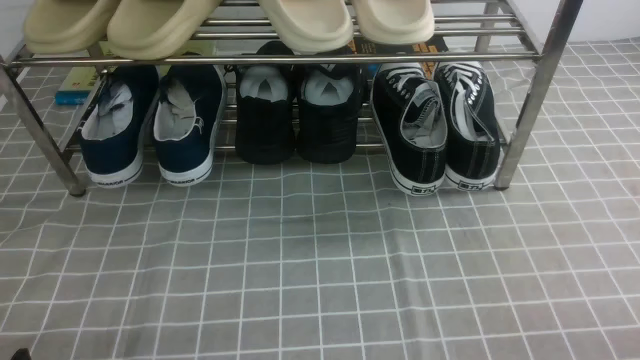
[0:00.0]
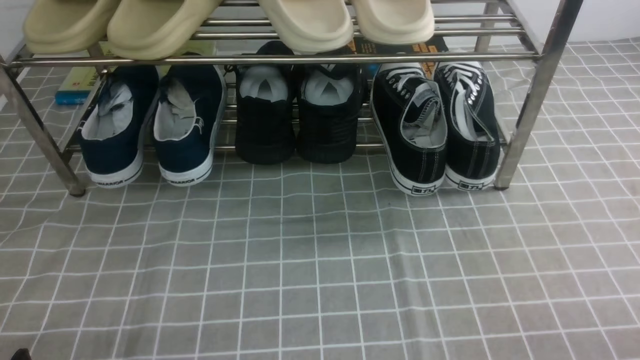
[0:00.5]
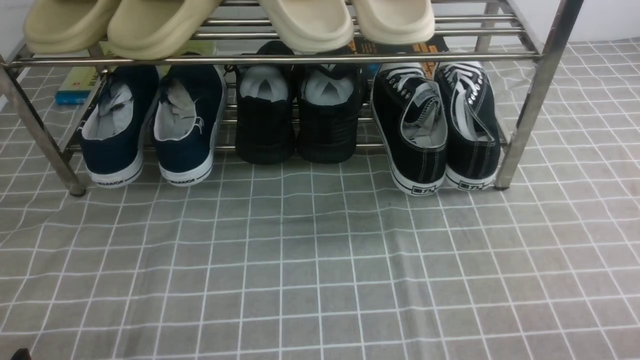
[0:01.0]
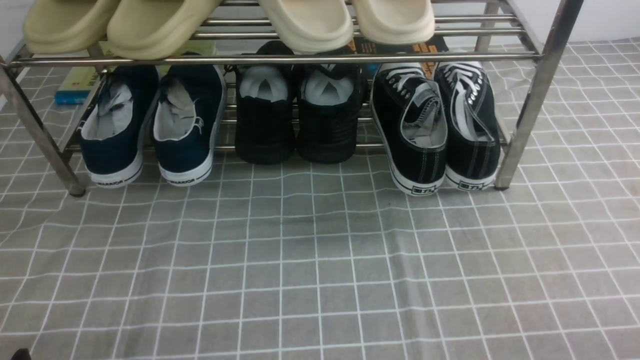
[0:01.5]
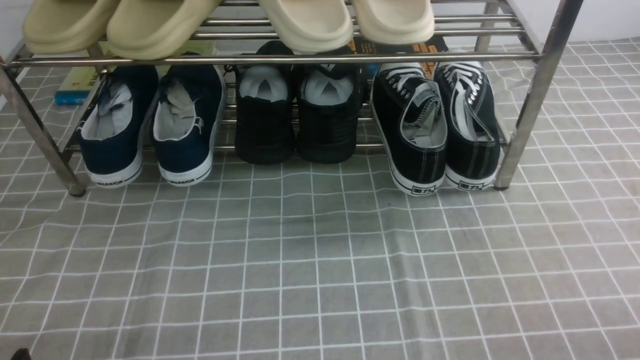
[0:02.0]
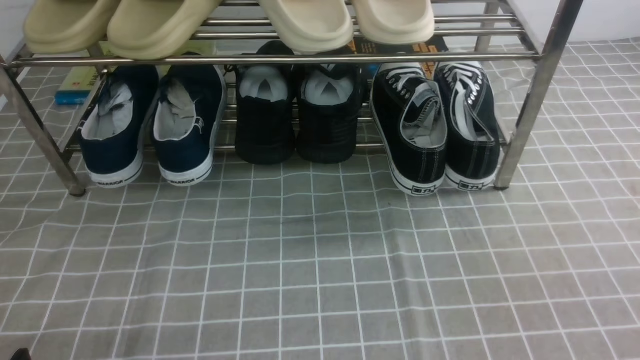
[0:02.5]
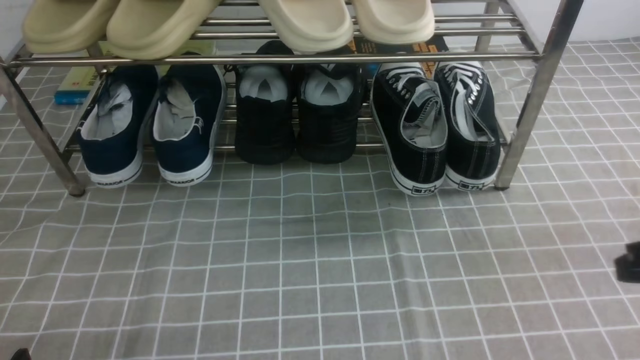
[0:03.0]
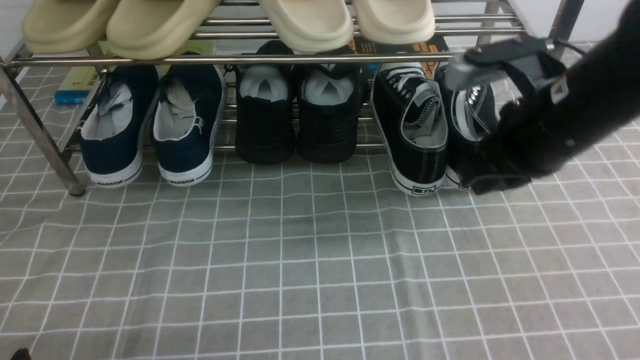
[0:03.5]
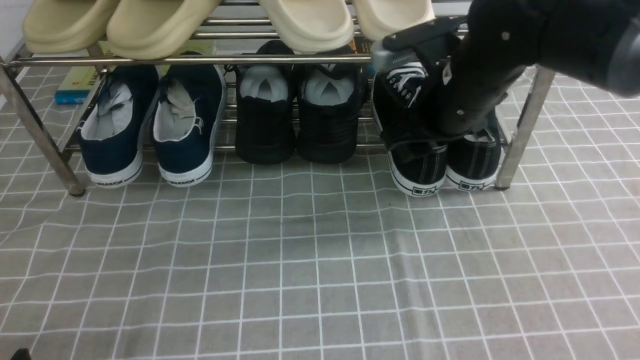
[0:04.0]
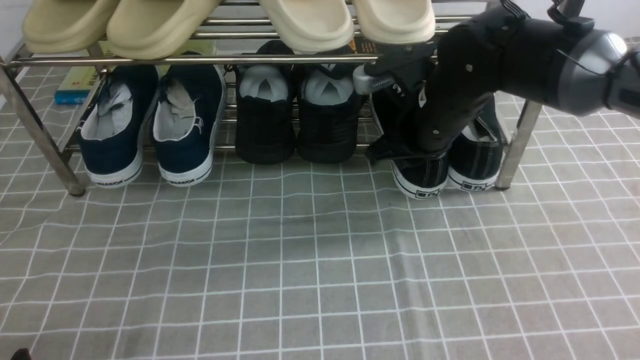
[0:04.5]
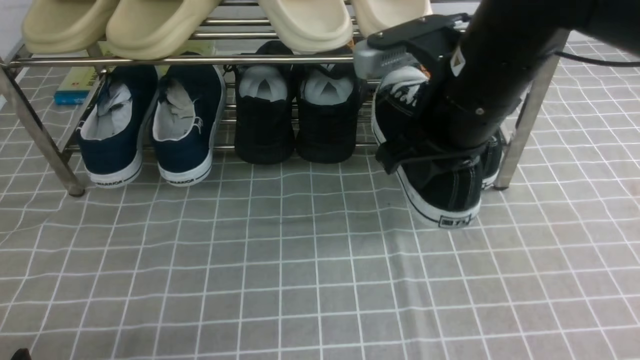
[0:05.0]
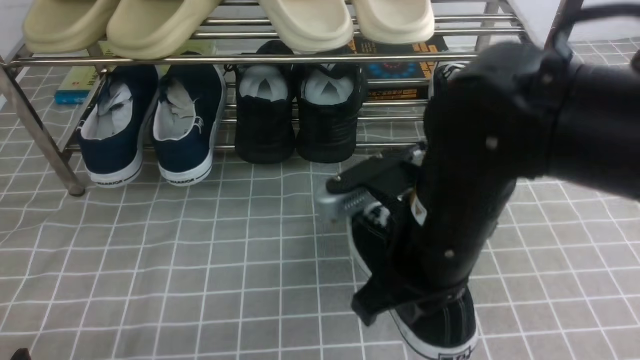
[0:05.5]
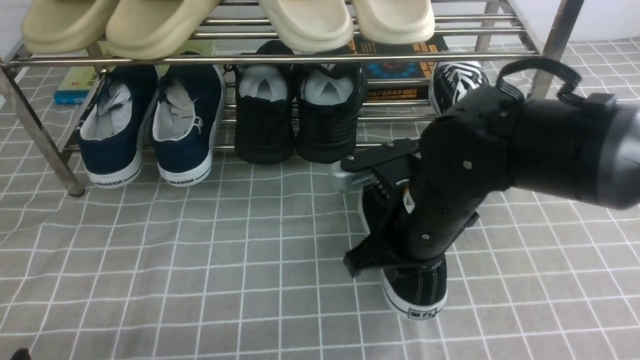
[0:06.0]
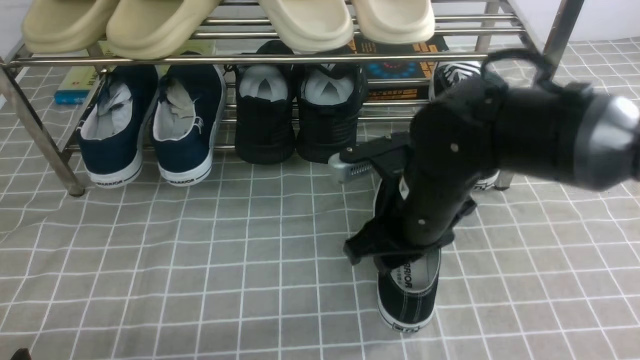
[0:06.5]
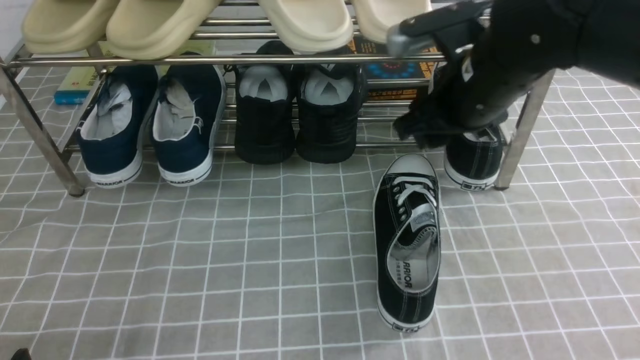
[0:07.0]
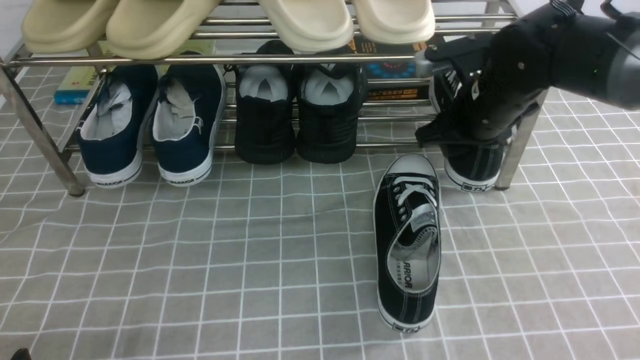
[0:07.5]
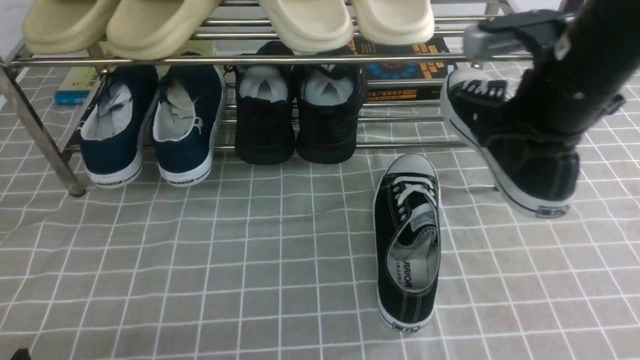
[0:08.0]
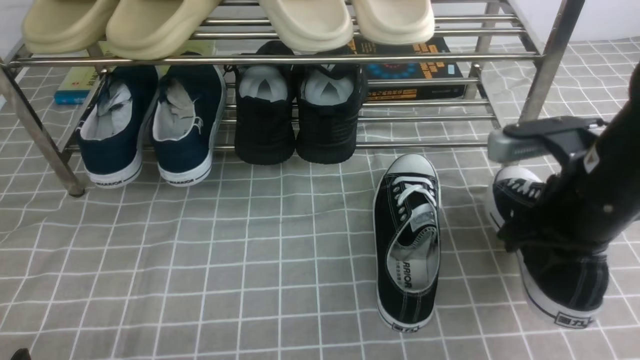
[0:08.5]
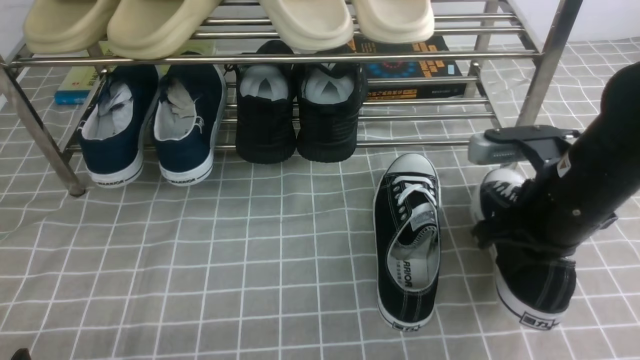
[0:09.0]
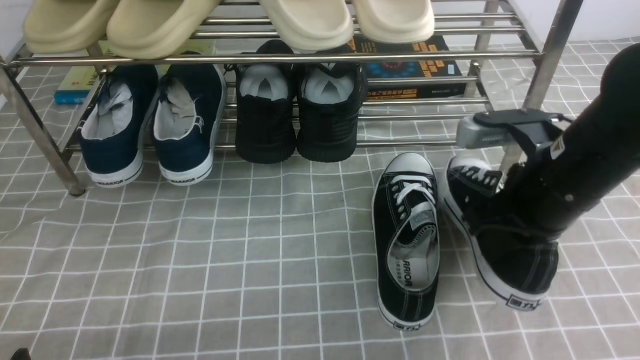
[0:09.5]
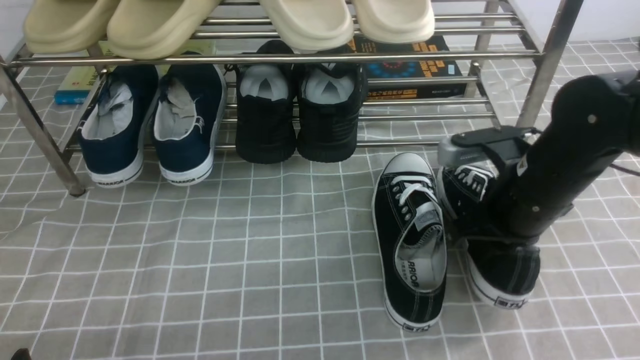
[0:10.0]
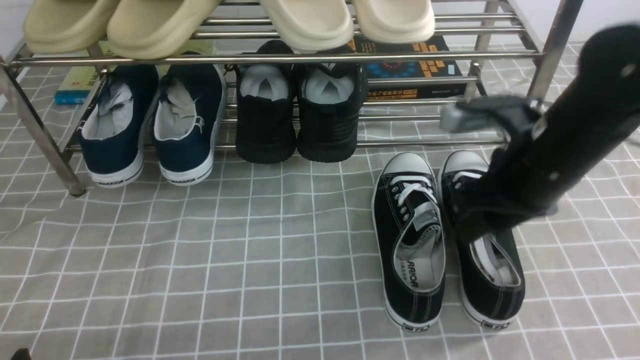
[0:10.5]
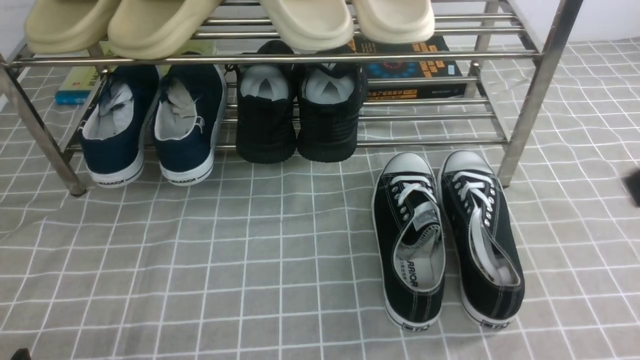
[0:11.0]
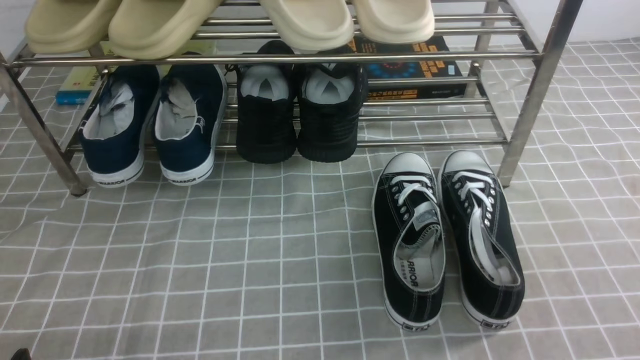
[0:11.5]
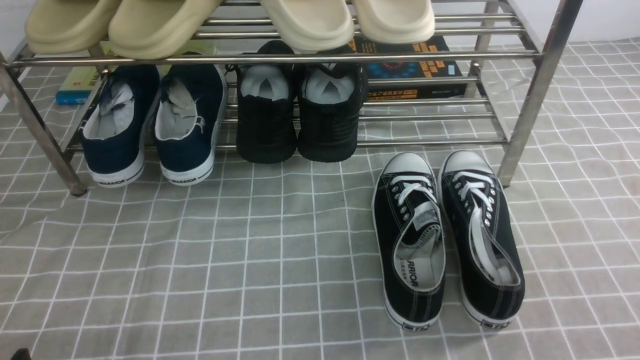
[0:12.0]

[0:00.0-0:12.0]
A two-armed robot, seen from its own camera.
Step, 0:00.0 to 0:04.5: use the right arm to clamp a shoe on the right side of the shoe rack.
Step, 0:05.0 to 0:06.5: use the right arm to take out the clamped shoe from the shoe rack and put it down.
Step, 0:07.0 to 0:08.0: use the right arm to clamp a shoe on the right side of the shoe rack.
Step, 0:08.5 to 0:10.0: use the right arm to take out the clamped shoe from the shoe rack and put it down.
0:02.0 to 0:04.0: The right gripper heads forward and to the left, covering roughly 35 cm, and opens its fingers.
0:04.0 to 0:06.0: The right gripper goes roughly 10 cm backward and downward, and closes up.
0:06.0 to 0:08.0: The right gripper moves to the right and upward, about 15 cm, moves approximately 15 cm forward and comes back, and opens, then closes once more.
0:08.0 to 0:10.0: The right gripper heads downward, covering some 10 cm.
0:10.0 to 0:12.0: The right gripper goes some 25 cm backward and to the right, and opens and closes again.

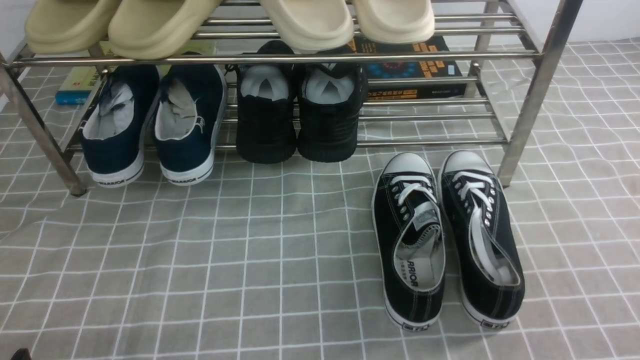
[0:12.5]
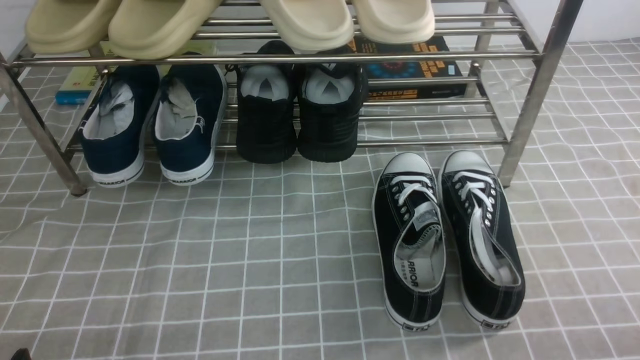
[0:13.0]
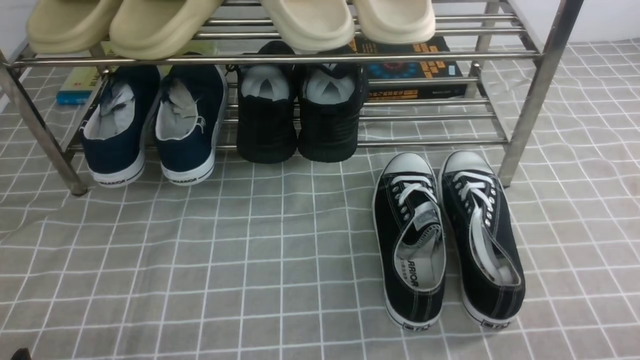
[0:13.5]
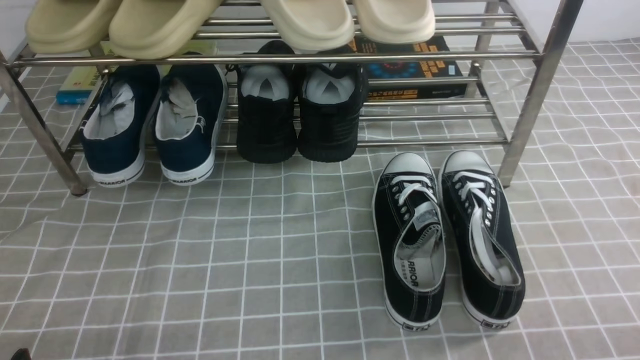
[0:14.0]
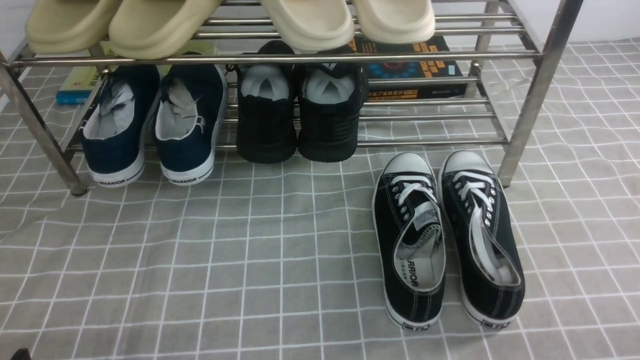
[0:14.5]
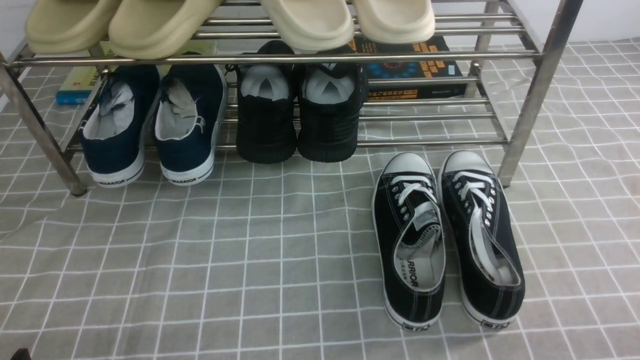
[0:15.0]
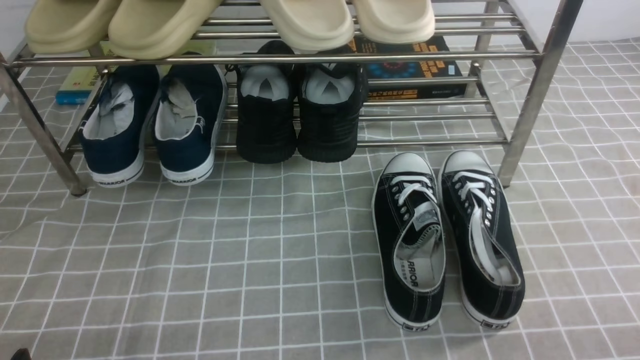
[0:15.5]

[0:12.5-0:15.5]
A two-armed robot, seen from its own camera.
0:14.0 to 0:15.5: Both grippers stay put.

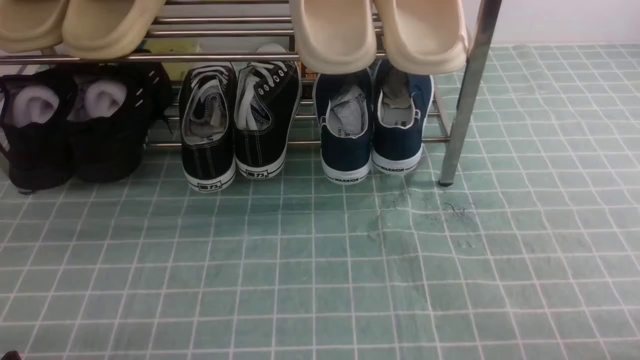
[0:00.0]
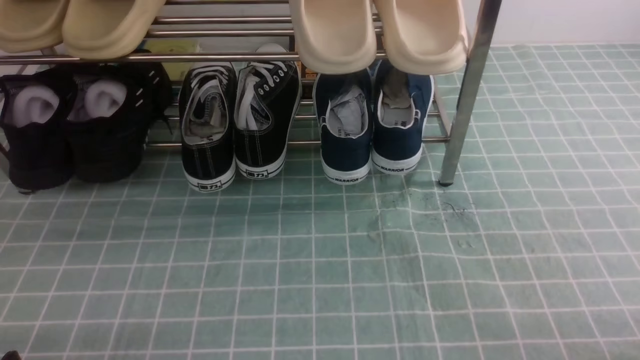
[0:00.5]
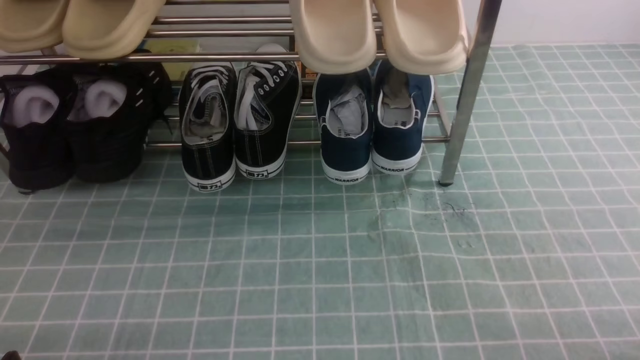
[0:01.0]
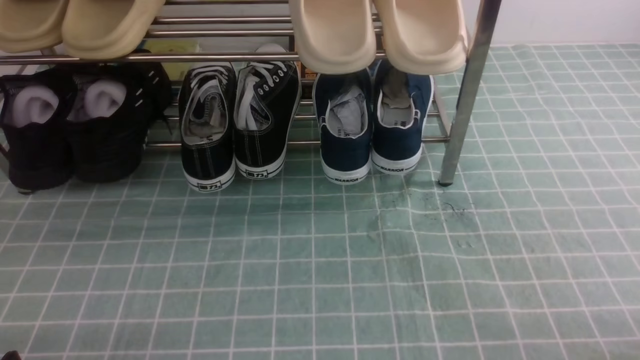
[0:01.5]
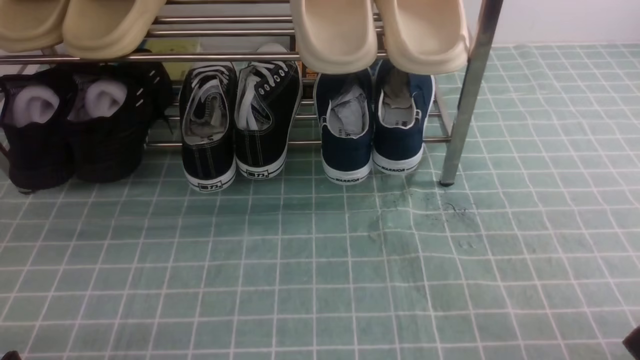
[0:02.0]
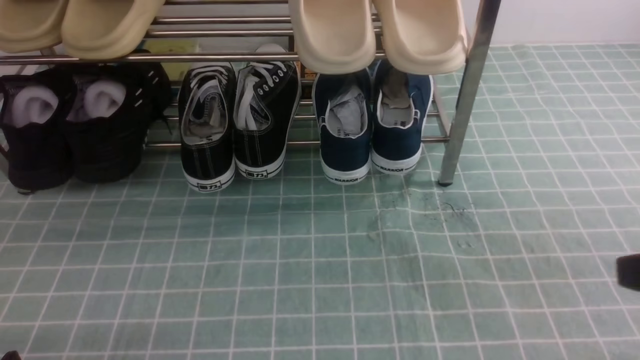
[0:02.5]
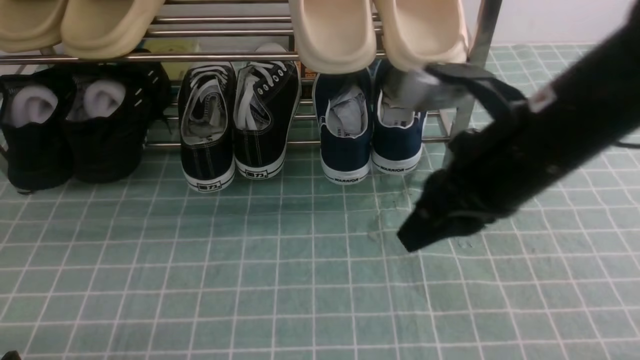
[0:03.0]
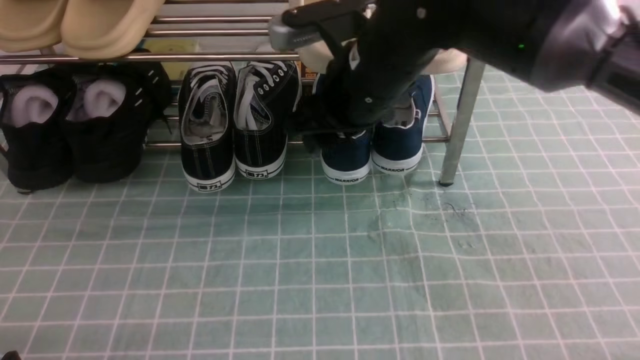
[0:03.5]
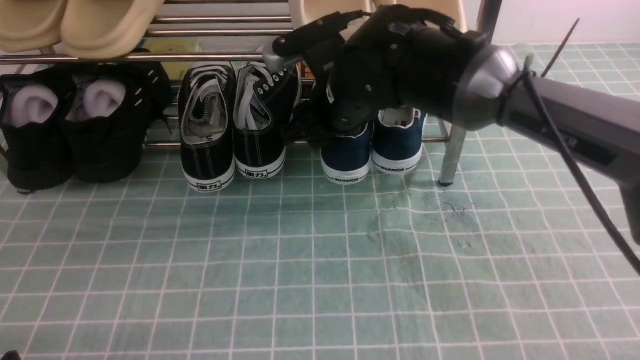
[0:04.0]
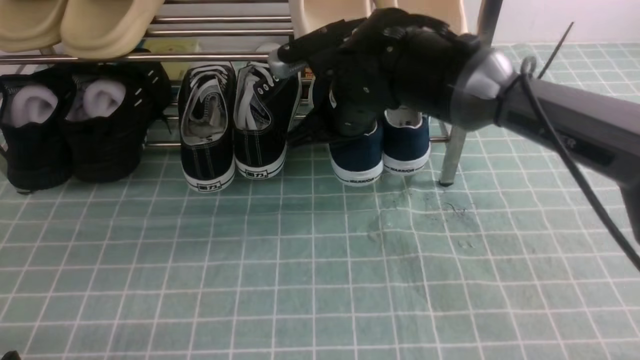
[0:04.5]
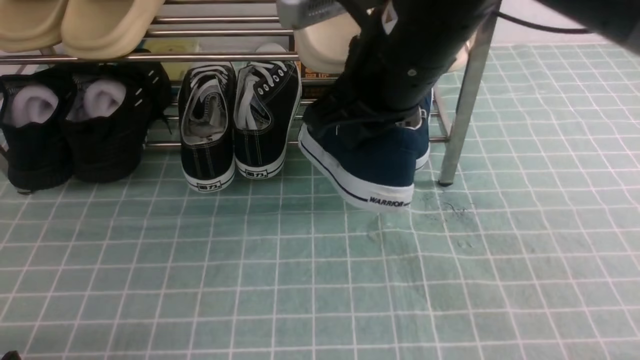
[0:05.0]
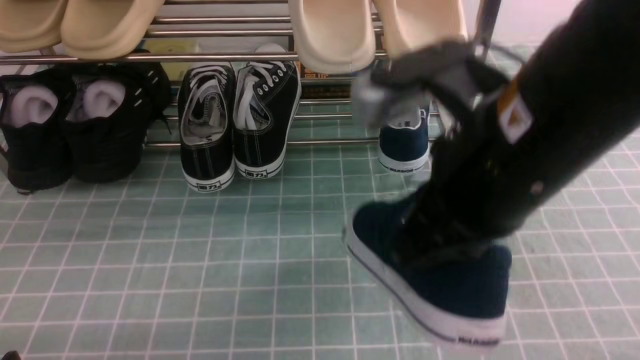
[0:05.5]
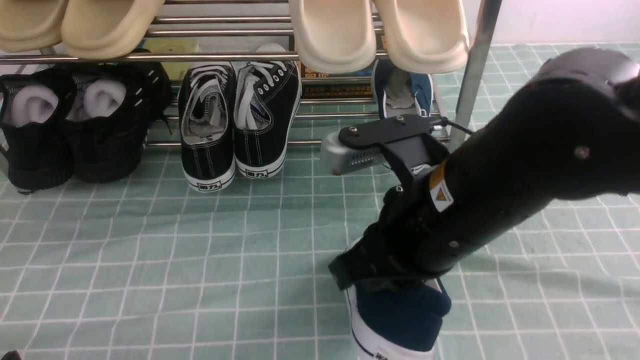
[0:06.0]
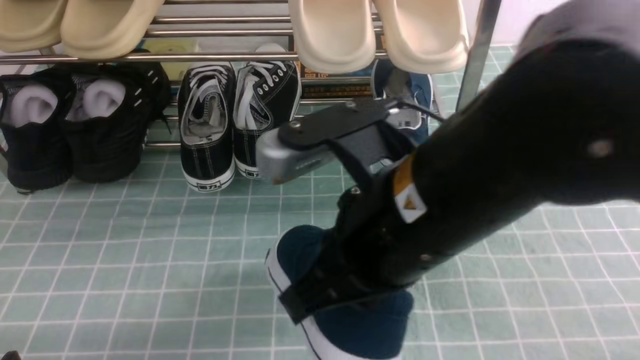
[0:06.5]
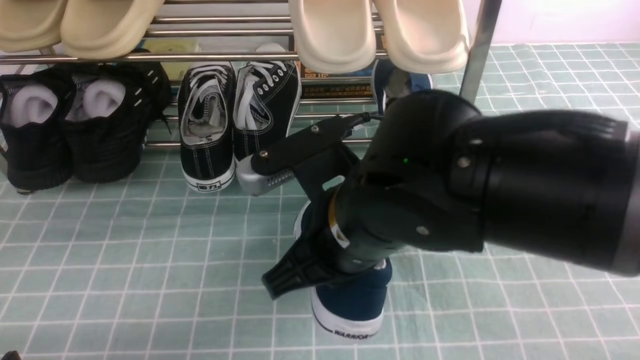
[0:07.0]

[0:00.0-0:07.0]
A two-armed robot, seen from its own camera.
Step, 0:00.0 to 0:04.0: use the right arm to clamp a shoe on the right side of the shoe rack.
0:02.0 to 0:03.5: The right gripper heads forward and to the left, covering approximately 40 cm, and opens.
0:03.5 to 0:05.0: The right gripper shifts roughly 10 cm upward and backward, and closes its fingers.
0:05.0 to 0:07.0: The right gripper shifts approximately 15 cm downward and backward.
